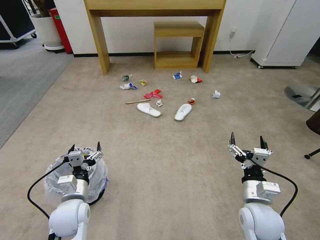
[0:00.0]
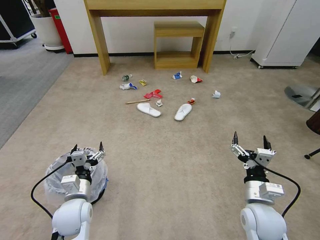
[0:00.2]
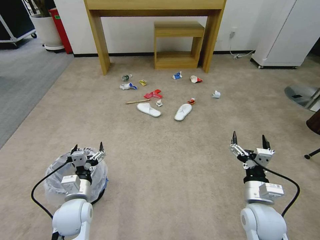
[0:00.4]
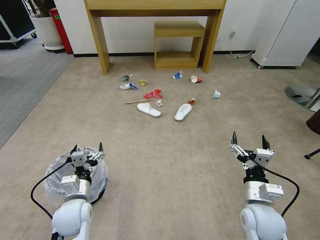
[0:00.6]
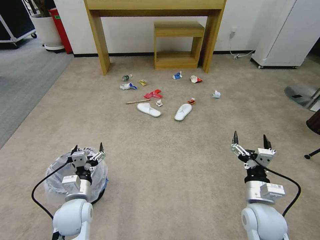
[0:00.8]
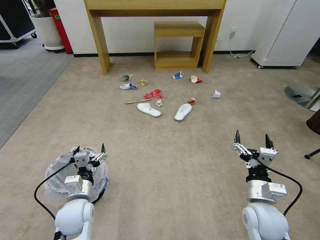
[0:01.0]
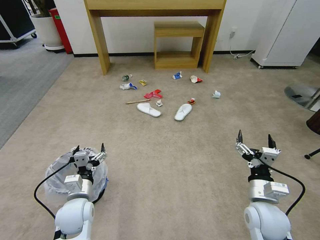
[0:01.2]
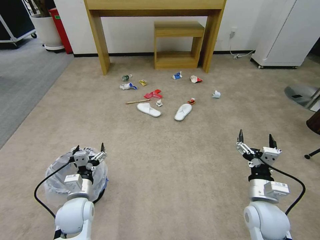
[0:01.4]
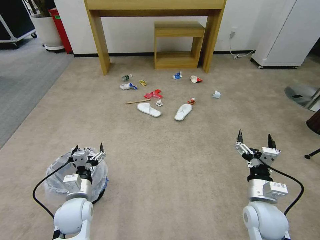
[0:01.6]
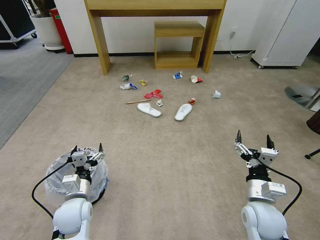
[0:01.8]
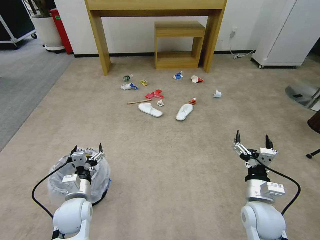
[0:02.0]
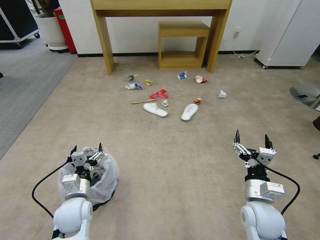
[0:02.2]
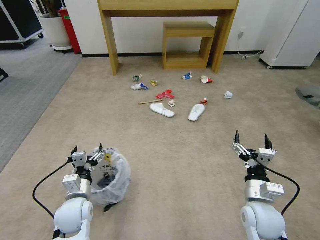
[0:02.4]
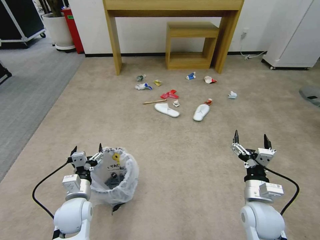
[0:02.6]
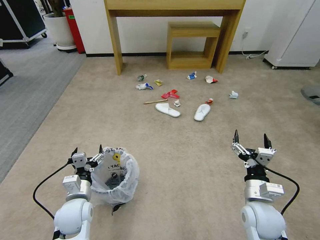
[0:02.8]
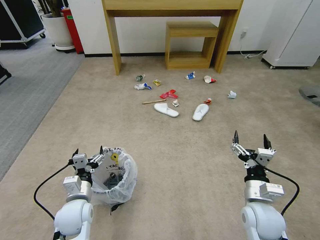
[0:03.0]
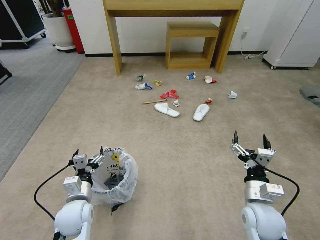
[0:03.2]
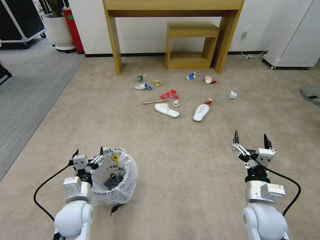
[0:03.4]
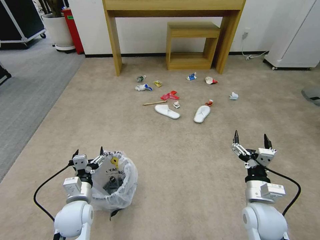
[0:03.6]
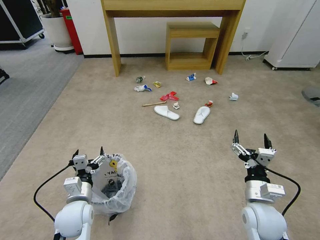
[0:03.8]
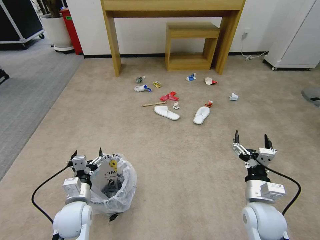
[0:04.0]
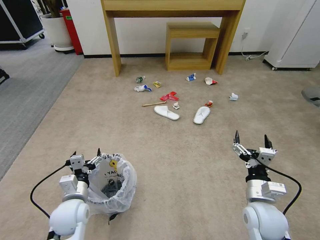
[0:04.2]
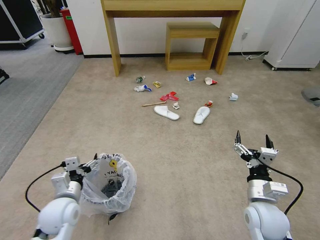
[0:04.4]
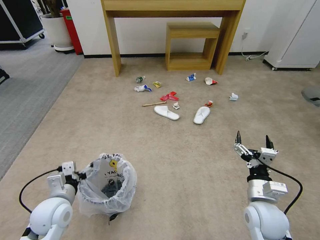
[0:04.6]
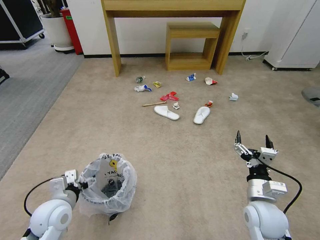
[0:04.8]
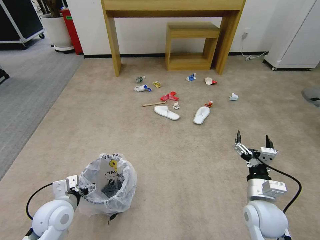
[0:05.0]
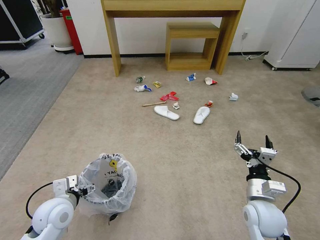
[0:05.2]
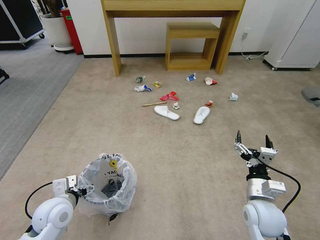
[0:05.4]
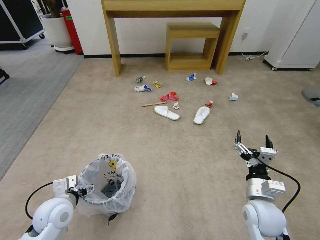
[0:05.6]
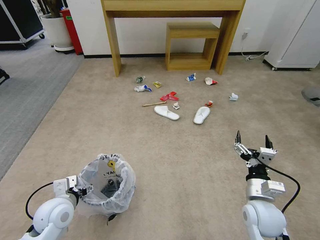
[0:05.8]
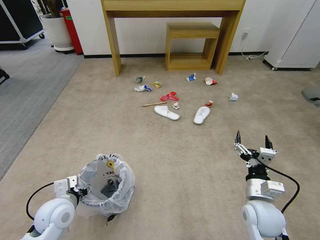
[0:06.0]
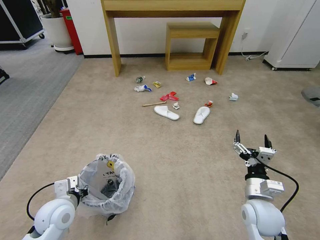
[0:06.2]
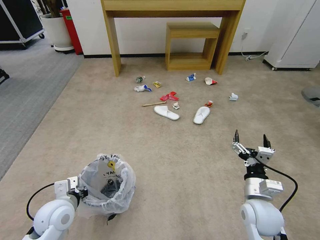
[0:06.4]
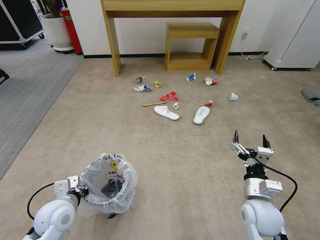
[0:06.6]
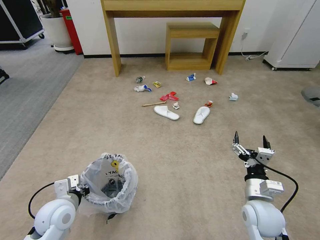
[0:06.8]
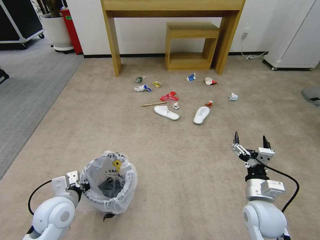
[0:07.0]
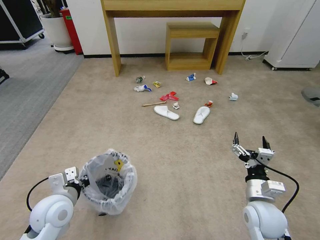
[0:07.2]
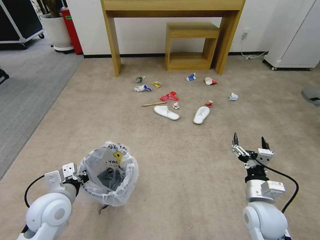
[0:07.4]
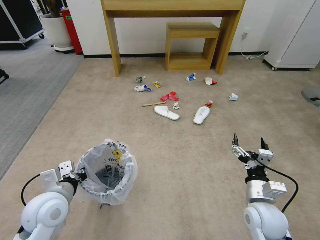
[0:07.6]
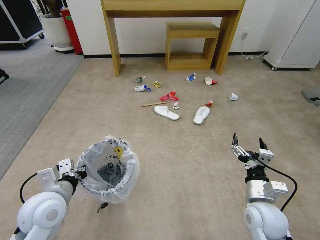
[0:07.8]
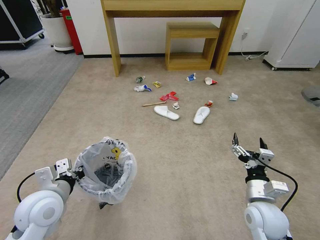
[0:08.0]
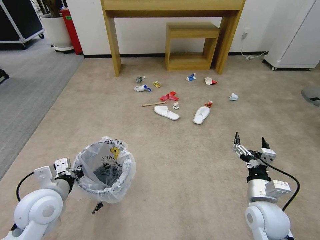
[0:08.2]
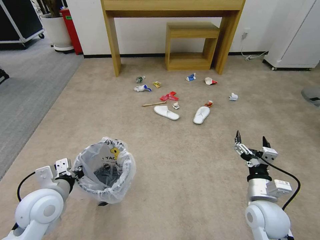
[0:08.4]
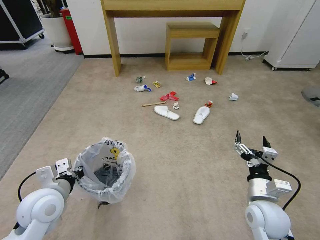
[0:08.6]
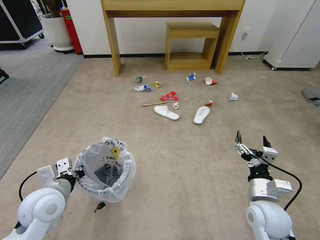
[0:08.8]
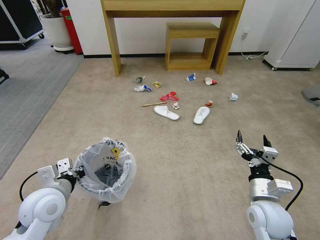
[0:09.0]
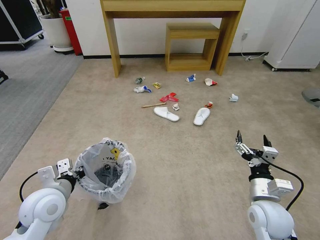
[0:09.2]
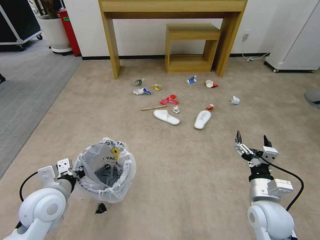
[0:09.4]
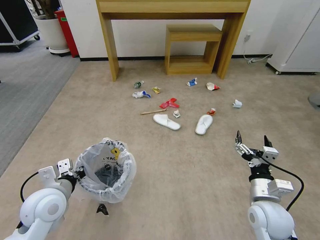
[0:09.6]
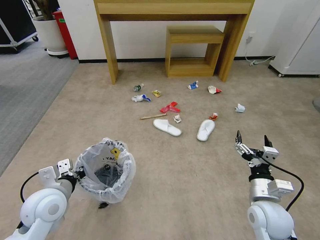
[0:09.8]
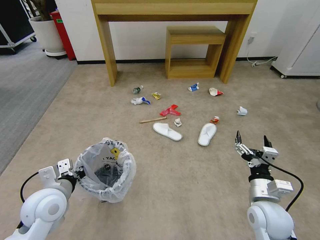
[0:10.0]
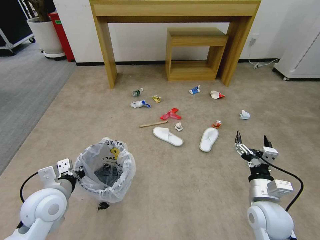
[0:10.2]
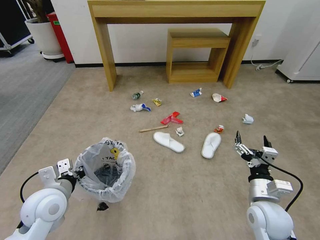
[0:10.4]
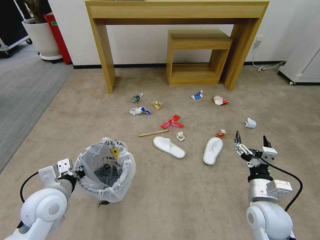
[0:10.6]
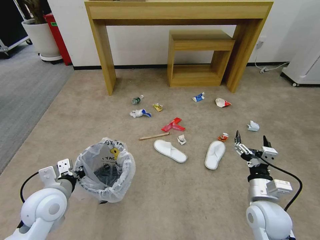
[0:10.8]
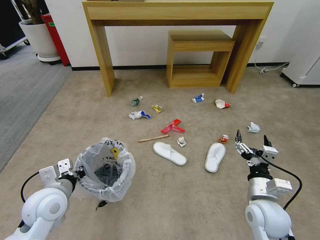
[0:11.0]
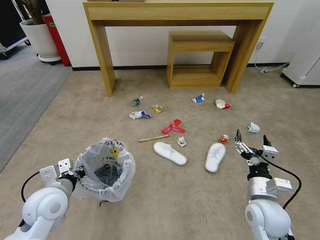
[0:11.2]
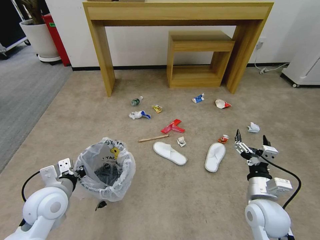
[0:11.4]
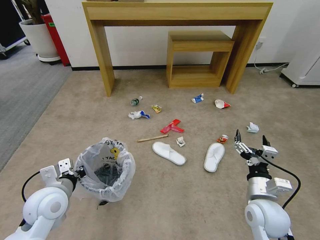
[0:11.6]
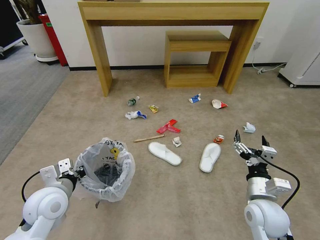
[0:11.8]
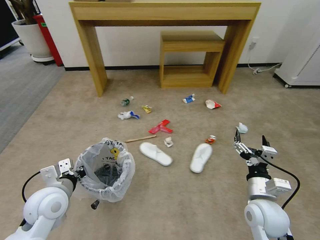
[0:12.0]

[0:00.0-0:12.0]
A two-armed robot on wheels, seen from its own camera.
Task of the whole recording: Pick up the trash bin and place the garbage on the floor into it.
0:03.0 to 0:04.4: The grippers make only small movements.
0:04.4 to 0:06.0: The left gripper closes up.
0:06.0 to 0:07.6: The left gripper goes about 5 cm upward, and closes up.
0:07.6 to 0:09.0: The grippers stay close to where they were, moving slightly.

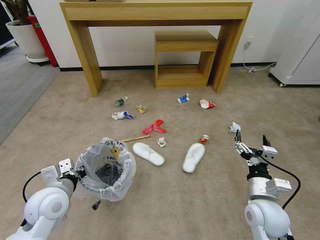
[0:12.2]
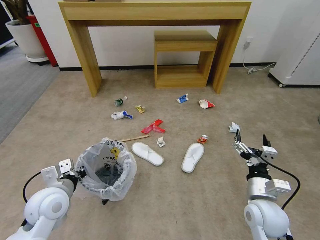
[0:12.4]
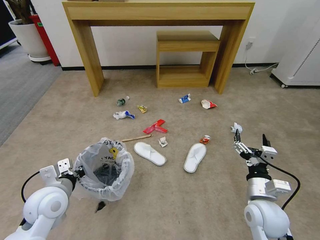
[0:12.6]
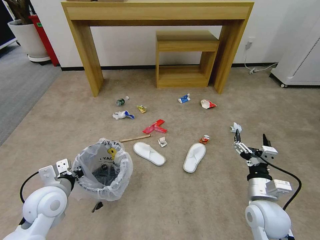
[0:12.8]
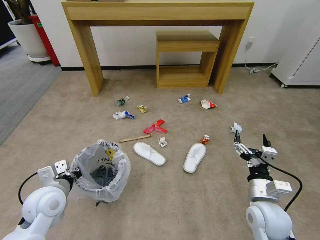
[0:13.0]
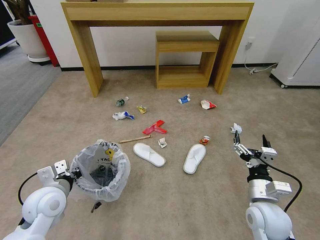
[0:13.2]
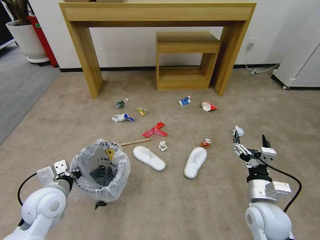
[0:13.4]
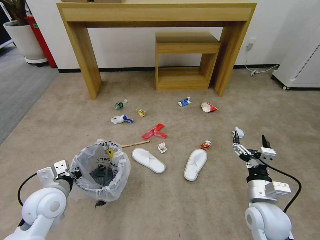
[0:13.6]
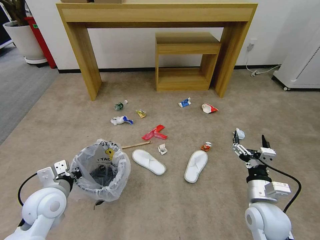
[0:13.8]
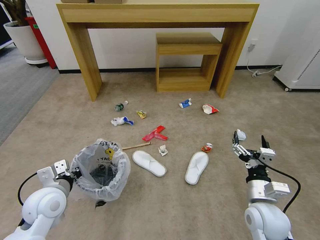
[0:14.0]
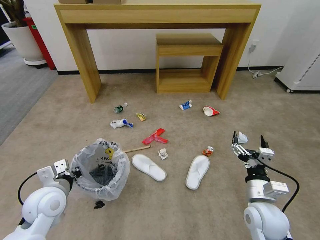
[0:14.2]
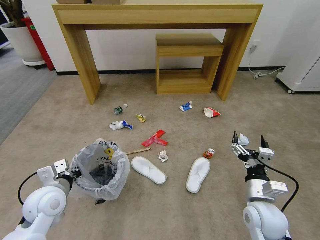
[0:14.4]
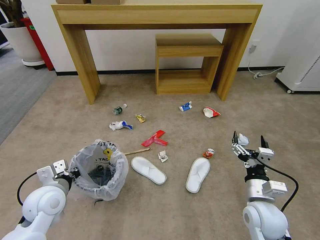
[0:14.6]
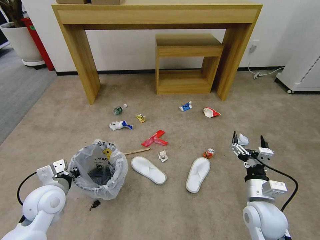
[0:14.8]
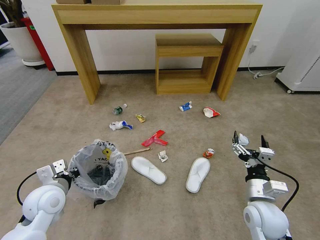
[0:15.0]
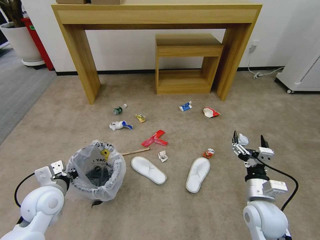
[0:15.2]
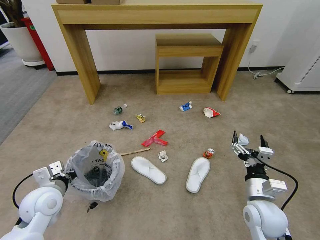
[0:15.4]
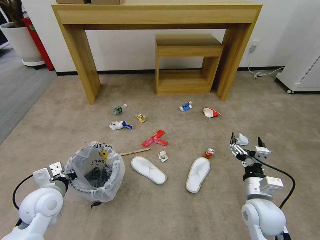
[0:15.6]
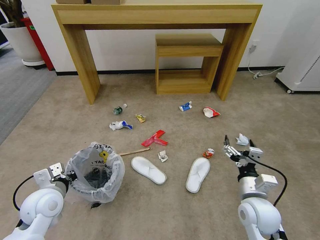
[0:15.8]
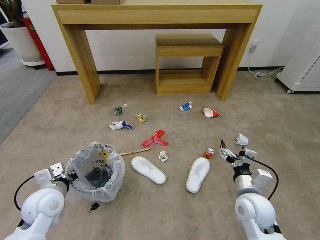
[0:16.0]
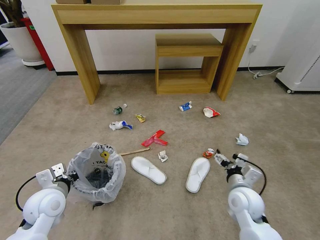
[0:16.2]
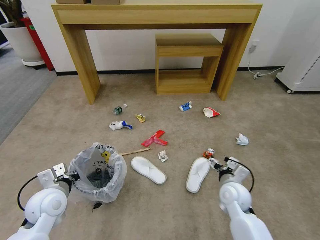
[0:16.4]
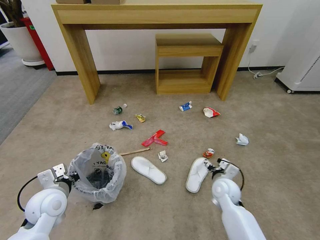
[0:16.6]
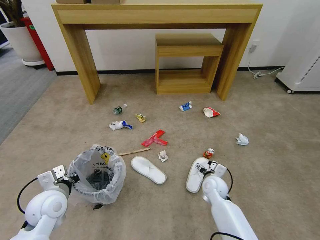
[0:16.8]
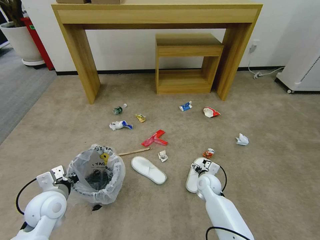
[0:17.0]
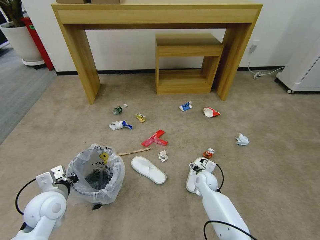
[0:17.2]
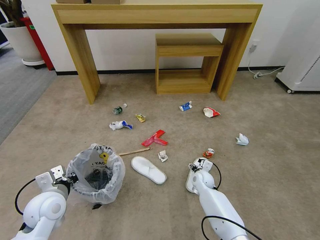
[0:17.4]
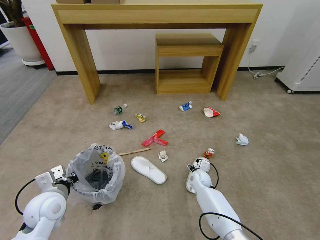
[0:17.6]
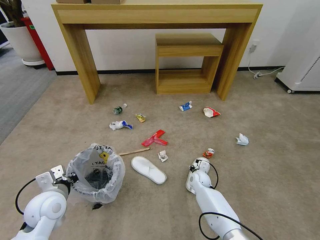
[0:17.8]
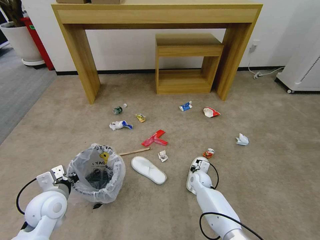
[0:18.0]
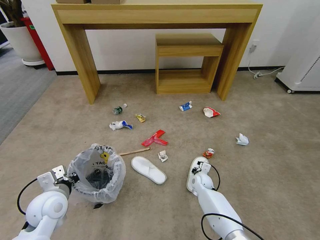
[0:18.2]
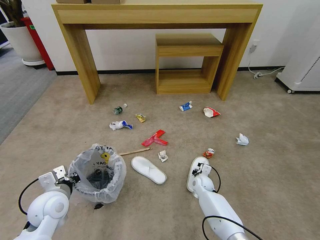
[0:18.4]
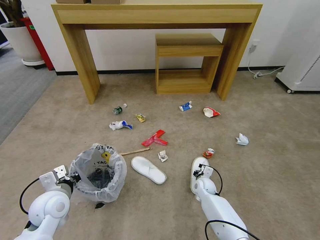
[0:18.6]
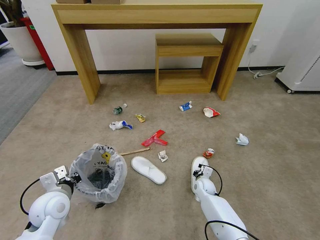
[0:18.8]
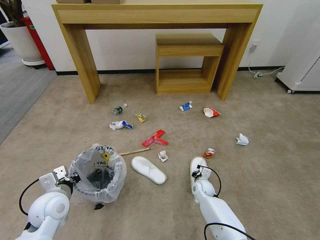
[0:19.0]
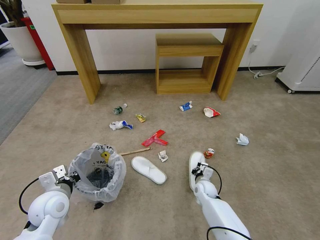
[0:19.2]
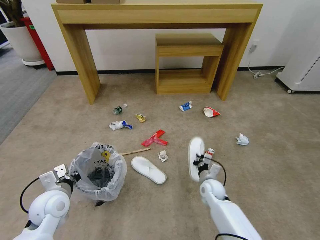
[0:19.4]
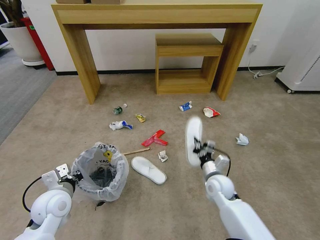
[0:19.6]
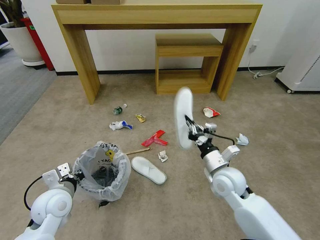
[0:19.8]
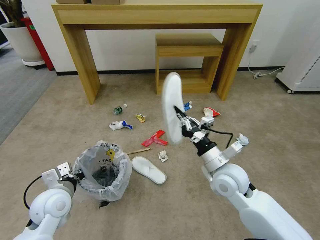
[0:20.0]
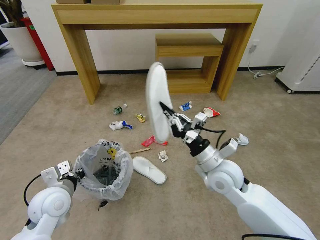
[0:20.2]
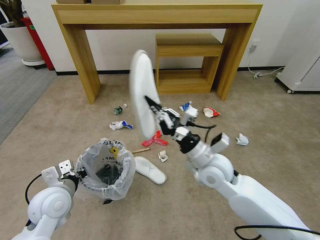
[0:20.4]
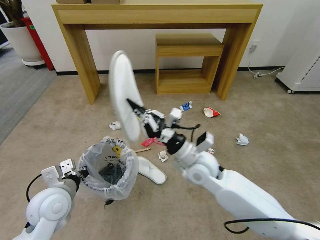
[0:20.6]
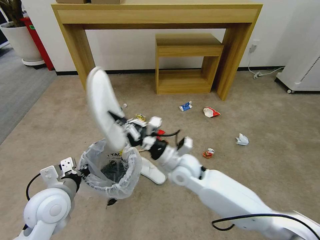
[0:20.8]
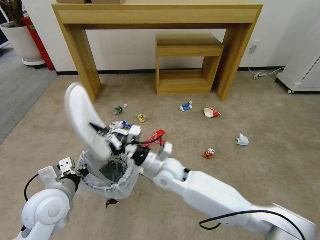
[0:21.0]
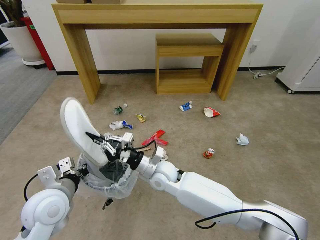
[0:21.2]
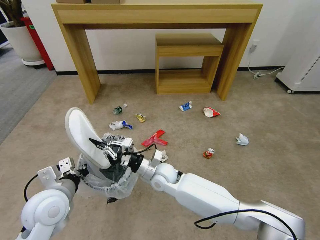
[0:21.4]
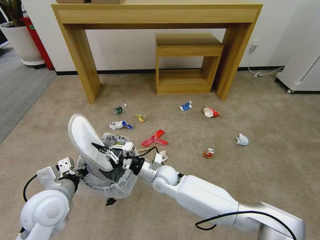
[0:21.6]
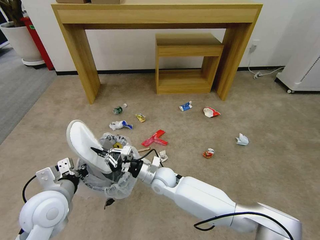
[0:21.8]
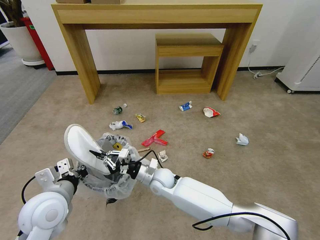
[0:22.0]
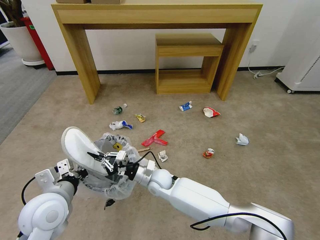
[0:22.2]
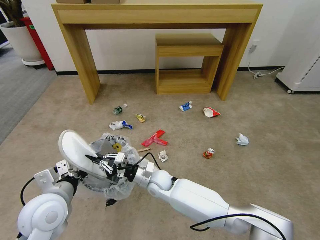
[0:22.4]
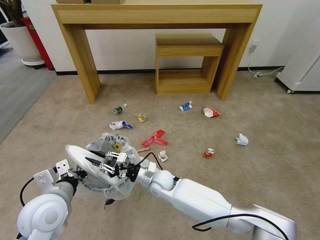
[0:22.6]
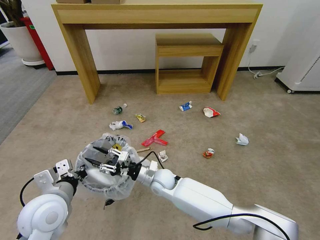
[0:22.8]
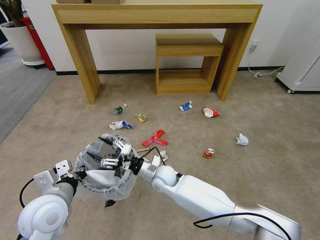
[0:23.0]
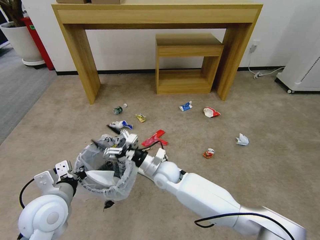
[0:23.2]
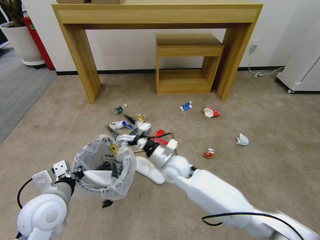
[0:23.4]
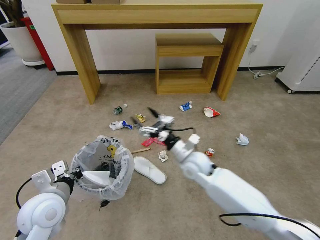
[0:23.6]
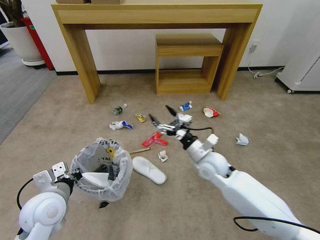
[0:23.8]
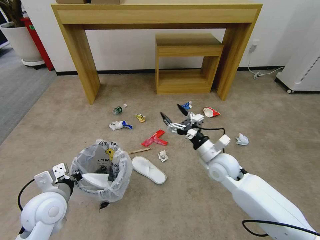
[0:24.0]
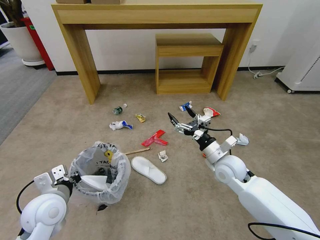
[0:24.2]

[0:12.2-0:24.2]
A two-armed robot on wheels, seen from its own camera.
Task of the whole recording: Pick up the trash bin and place the garbage on the floor into it.
0:12.2 to 0:15.2: There are only small adjustments of the grippers.
0:15.2 to 0:16.6: The right gripper travels forward and downward by some 15 cm.
0:16.6 to 0:18.2: The right gripper heads downward and forward, covering about 15 cm, and closes up.
0:18.2 to 0:19.8: The right gripper moves upward and backward, some 25 cm.
0:19.8 to 0:21.2: The left gripper goes about 5 cm upward. The right gripper shifts some 20 cm to the left.
0:21.2 to 0:22.6: The right gripper travels downward by approximately 5 cm.
0:22.6 to 0:24.2: The right gripper shifts about 25 cm to the right and upward, and opens its fingers.
